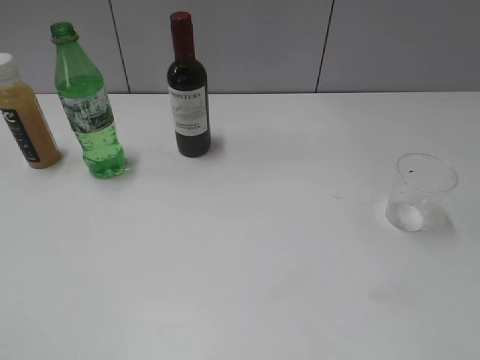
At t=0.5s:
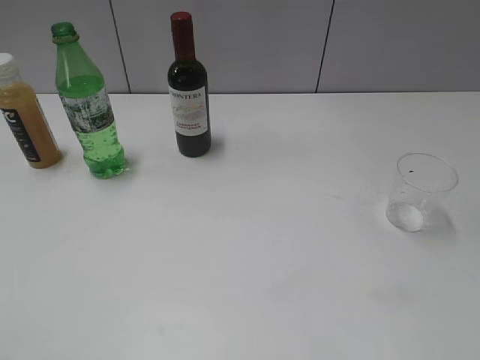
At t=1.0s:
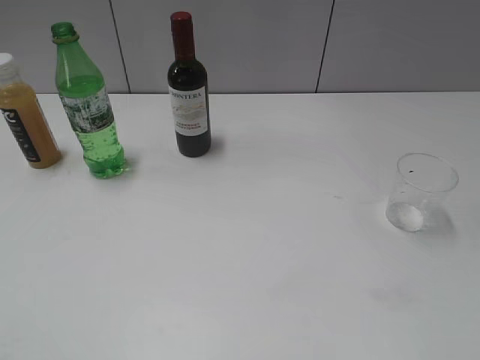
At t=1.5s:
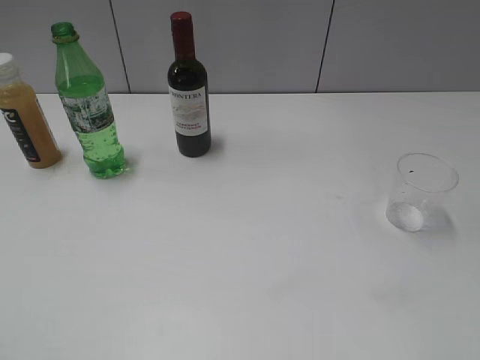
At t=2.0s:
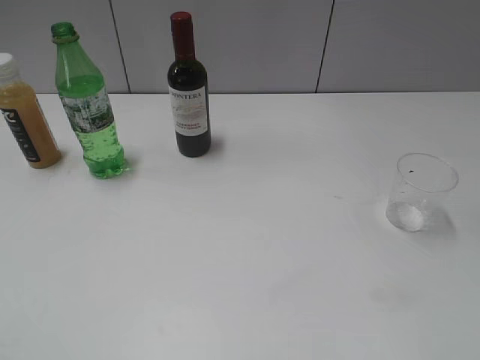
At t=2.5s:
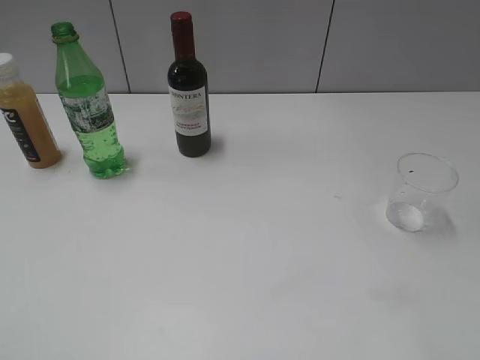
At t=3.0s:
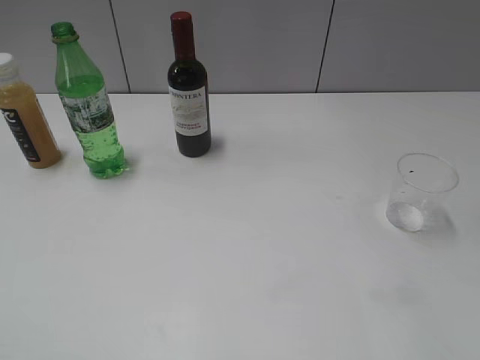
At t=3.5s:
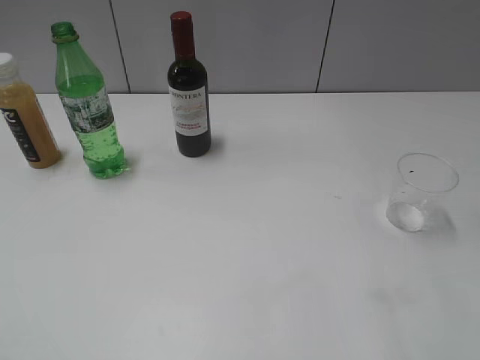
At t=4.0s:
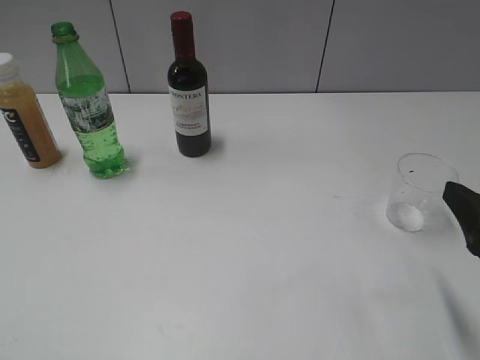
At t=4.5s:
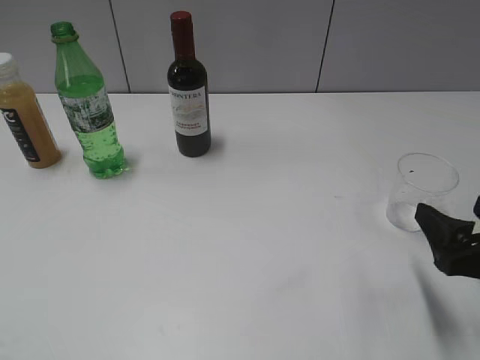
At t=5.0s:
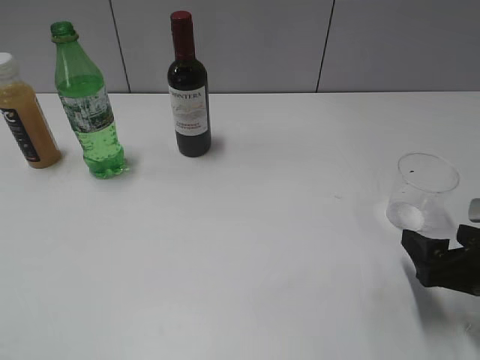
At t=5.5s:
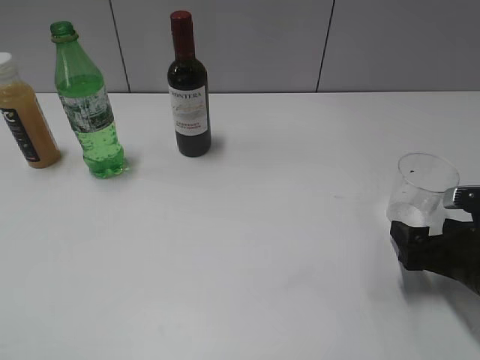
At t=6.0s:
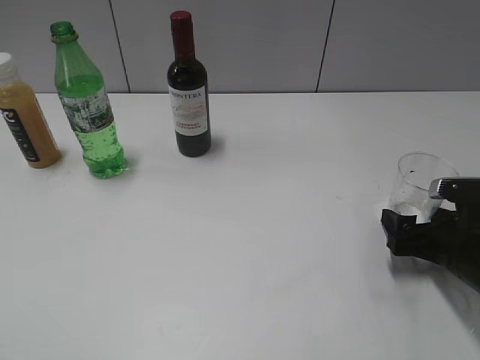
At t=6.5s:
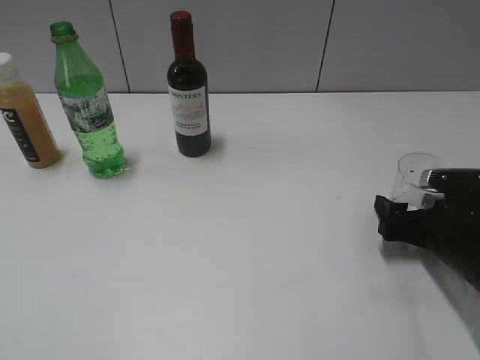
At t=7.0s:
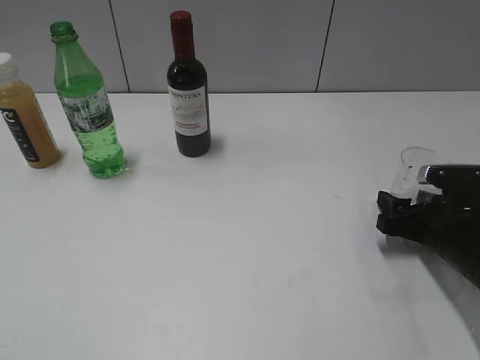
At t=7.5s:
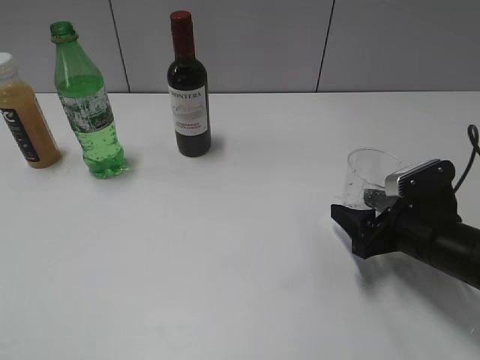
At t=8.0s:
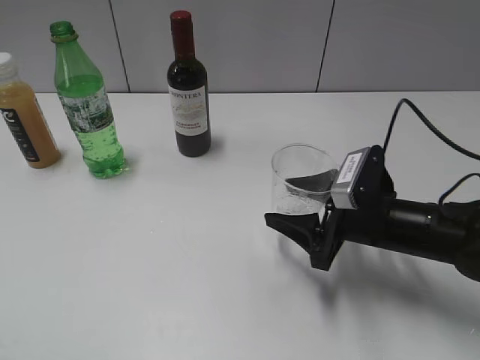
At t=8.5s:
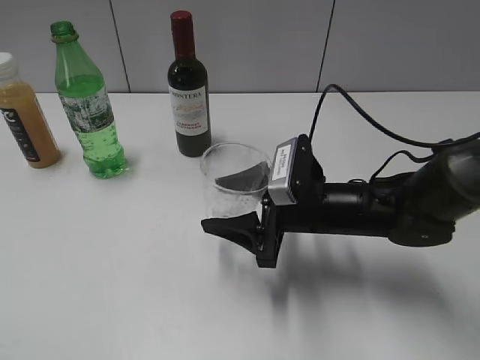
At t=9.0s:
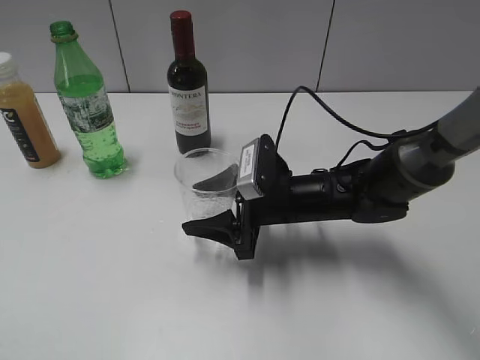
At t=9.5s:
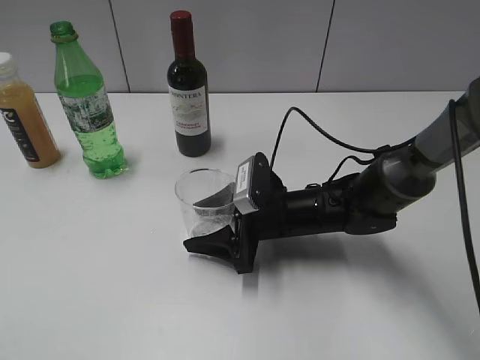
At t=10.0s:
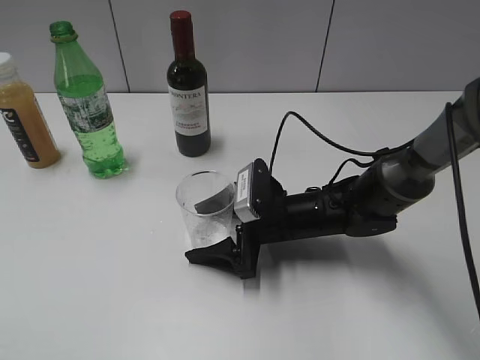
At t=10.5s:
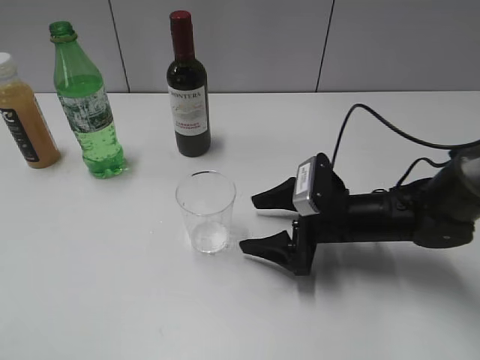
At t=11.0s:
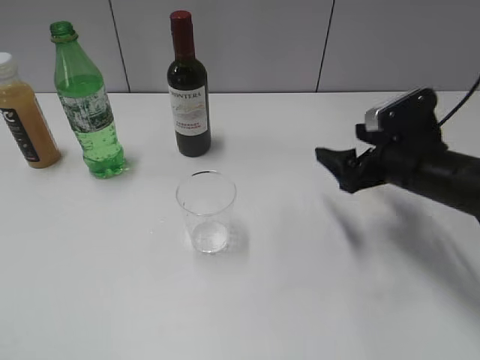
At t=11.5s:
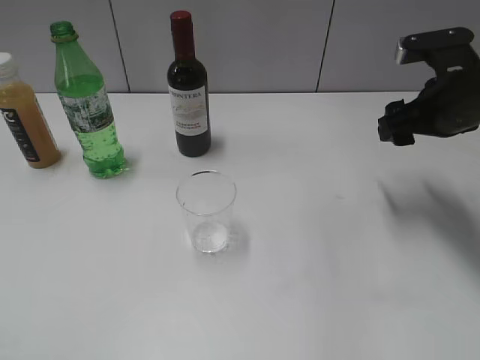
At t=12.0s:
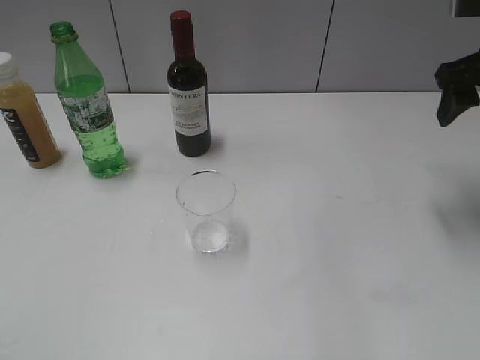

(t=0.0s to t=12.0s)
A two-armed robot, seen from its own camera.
Step, t=2.0s - t=6.5s: Grasp the transparent cup with right gripper.
Step, t=7.0s - t=10.0s: Place the transparent cup on the table with right gripper.
t=2.0s - t=4.0s: The right gripper travels forward and downward by approximately 15 cm.
t=4.0s - t=6.0s: The right gripper moves downward and forward, some 15 cm.
t=6.0s - t=8.0s: The right gripper moves to the left, about 10 cm, and closes up.
t=8.0s - t=10.0s: The right gripper shifts approximately 10 cm to the left, and opens.
t=10.0s - t=12.0s: The right gripper goes roughly 30 cm upward and to the right, and closes.

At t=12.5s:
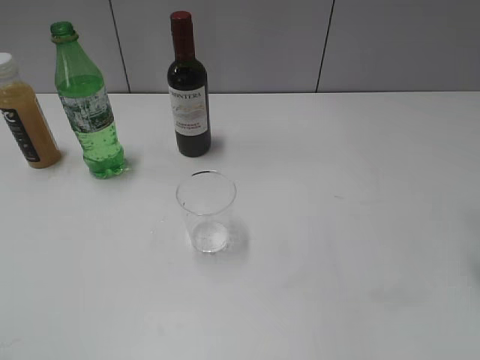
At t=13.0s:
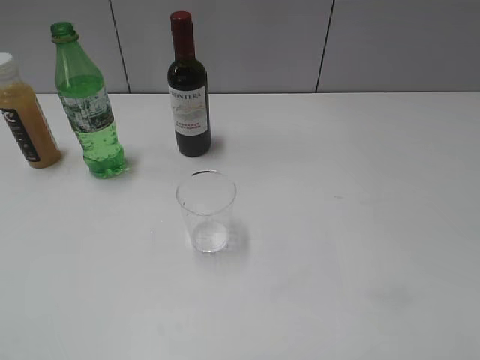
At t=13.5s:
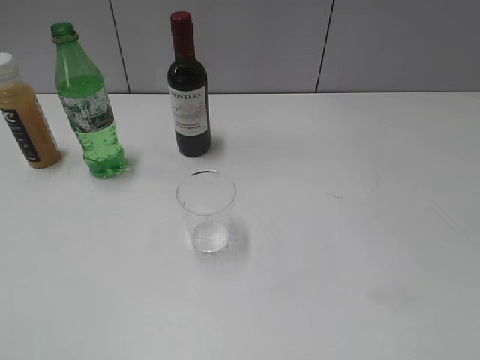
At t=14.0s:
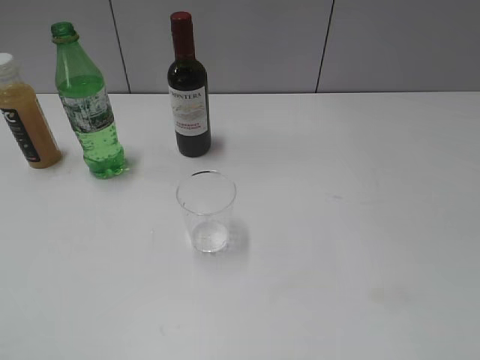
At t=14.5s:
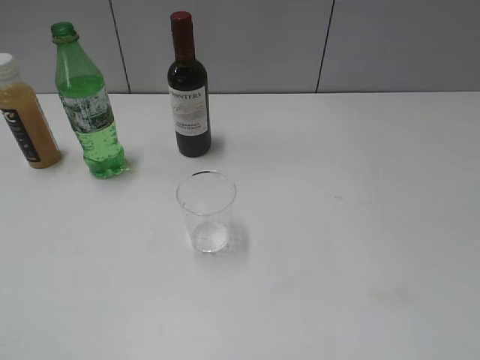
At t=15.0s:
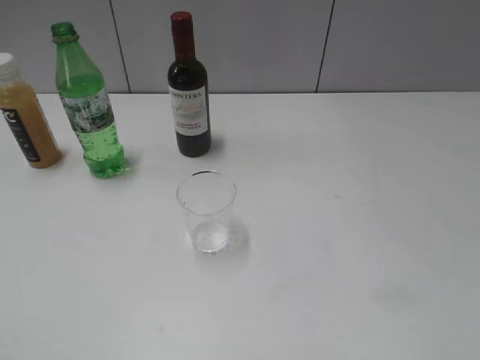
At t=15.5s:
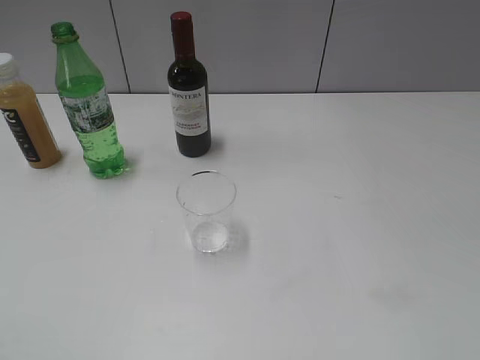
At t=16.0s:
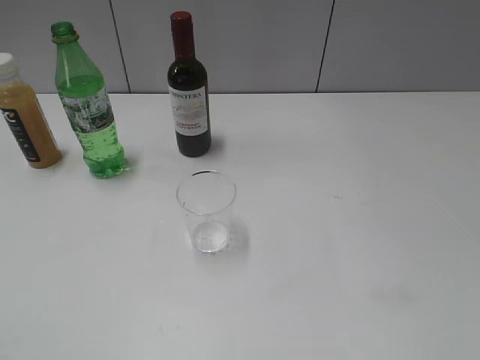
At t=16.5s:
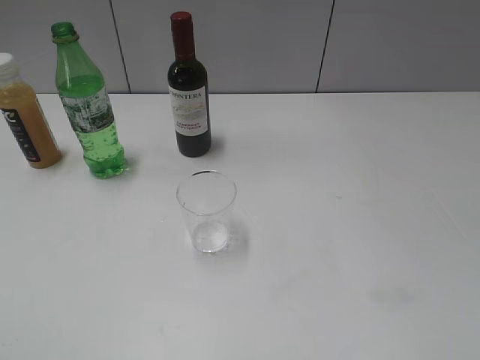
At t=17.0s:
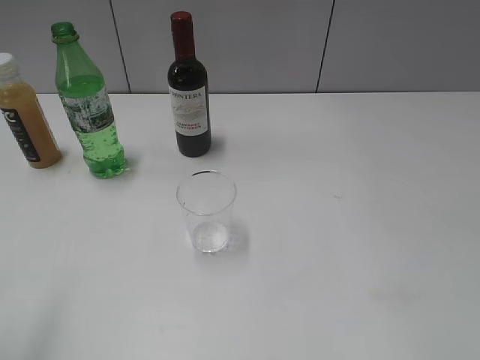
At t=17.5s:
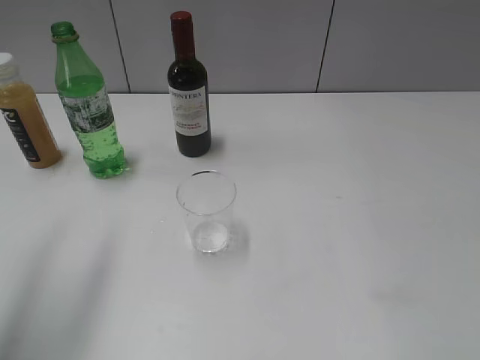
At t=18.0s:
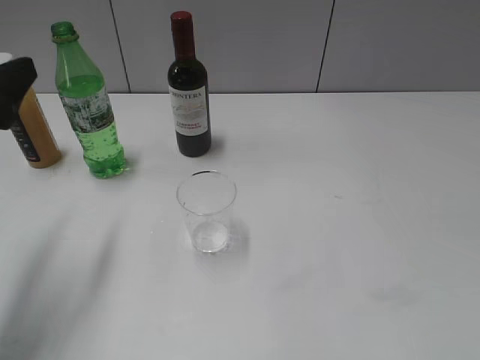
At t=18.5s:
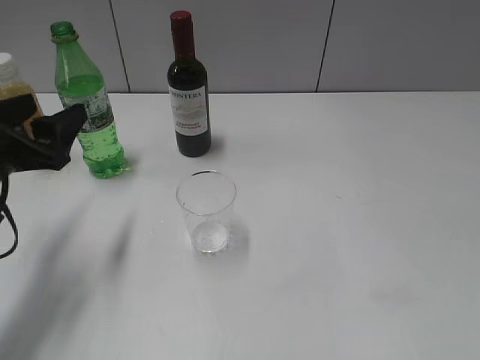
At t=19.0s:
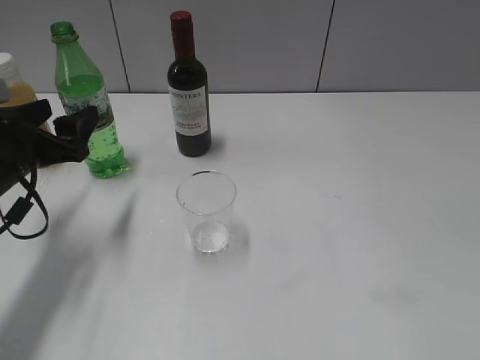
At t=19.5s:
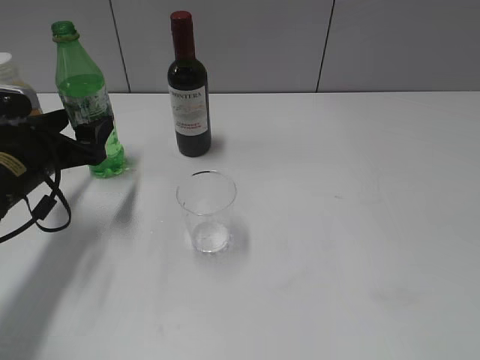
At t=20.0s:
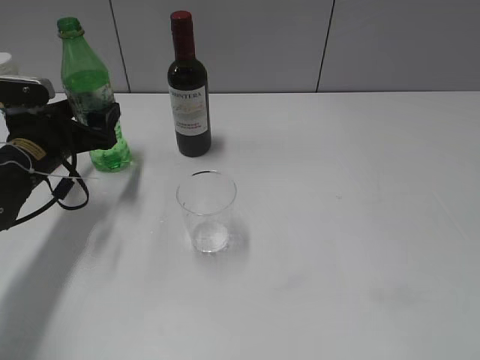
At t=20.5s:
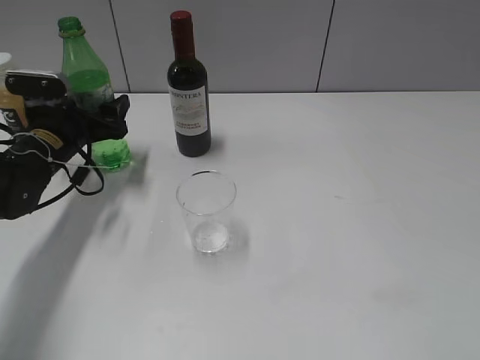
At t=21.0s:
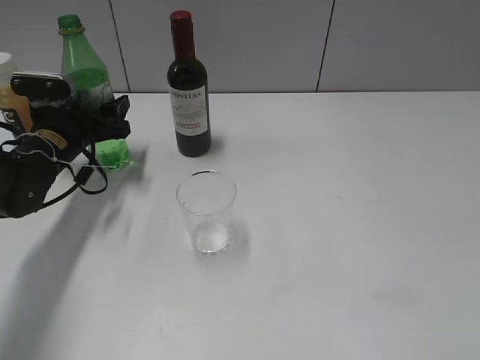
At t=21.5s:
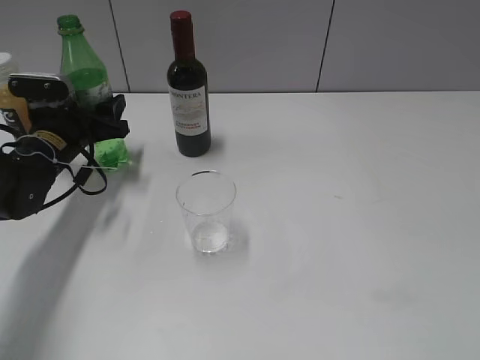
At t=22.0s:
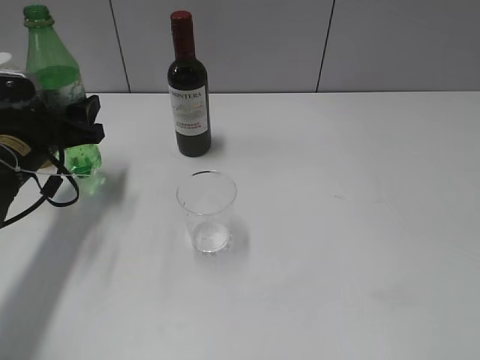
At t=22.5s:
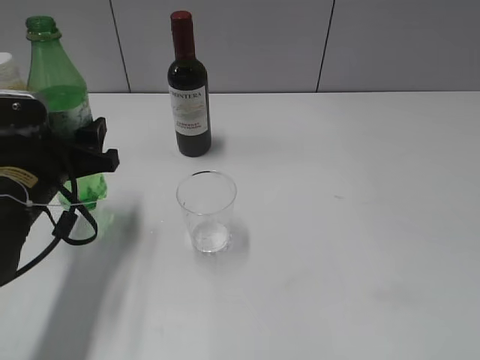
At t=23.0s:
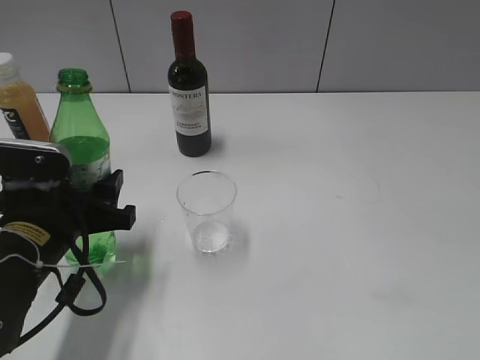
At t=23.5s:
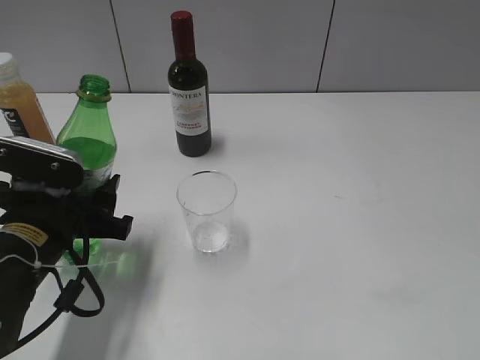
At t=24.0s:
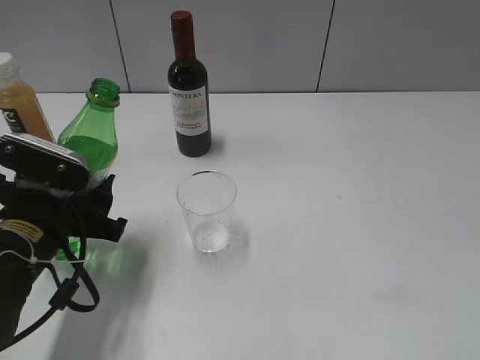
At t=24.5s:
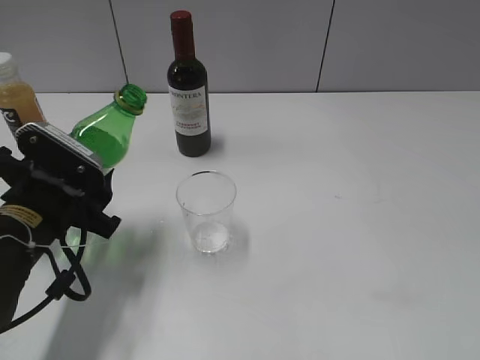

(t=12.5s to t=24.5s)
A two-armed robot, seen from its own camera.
Step, t=12.5s - t=21.0s: Grasp the bottle with sprite with left gripper.
t=16.5s - t=18.5s: The left gripper goes some 25 cm forward and downward.
t=18.5s - t=20.5s: The left gripper heads forward and downward, covering some 15 cm.
t=20.5s - t=22.5s: The left gripper moves backward, approximately 10 cm, and closes.

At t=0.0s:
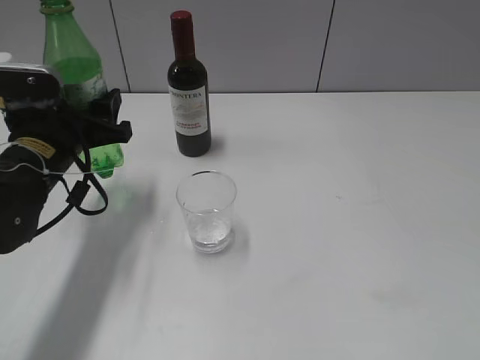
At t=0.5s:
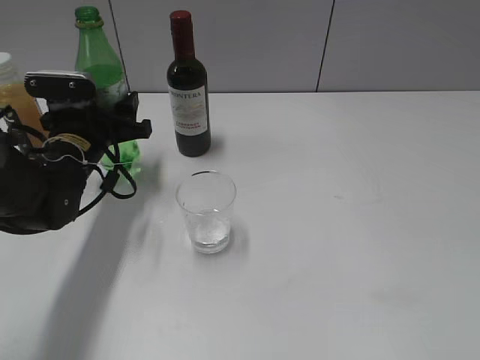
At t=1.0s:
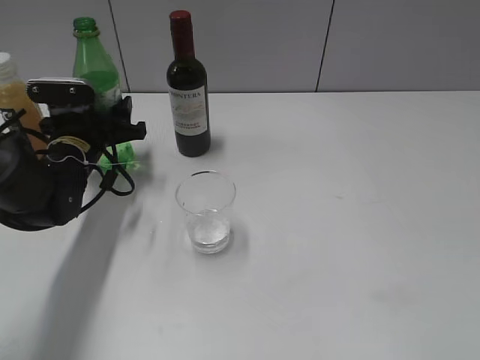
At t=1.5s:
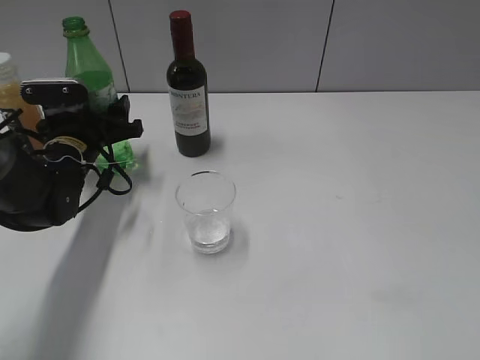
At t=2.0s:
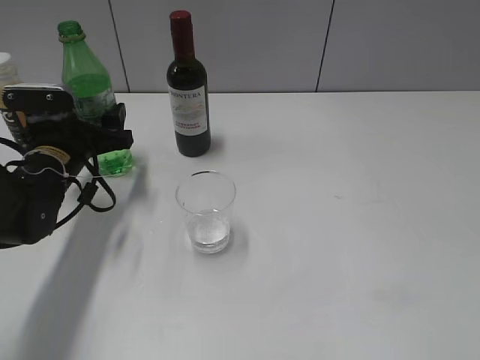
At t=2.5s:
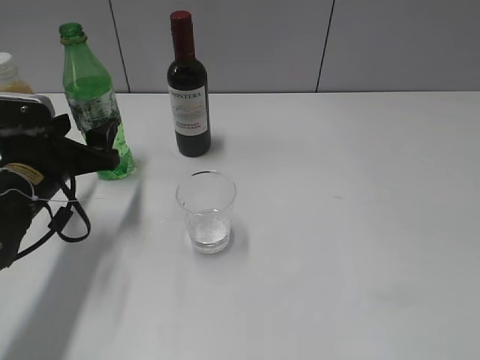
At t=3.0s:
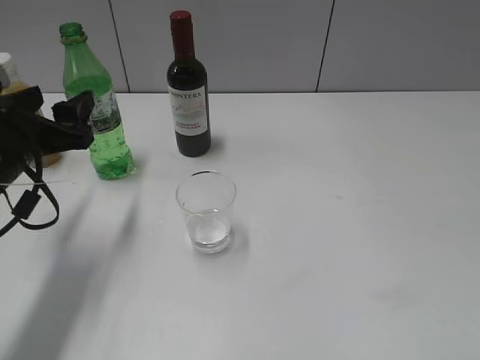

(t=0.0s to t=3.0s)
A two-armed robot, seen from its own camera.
Step, t=0.0s - t=2.5s: Place the sprite bottle on the table with left gripper.
t=0.0s - t=1.5s: The left gripper is displaced forward and downward by roughly 10 cm.
t=1.5s - t=3.0s: The left gripper shifts about 10 cm backward and upward.
